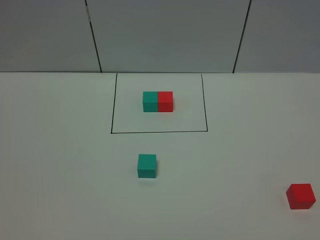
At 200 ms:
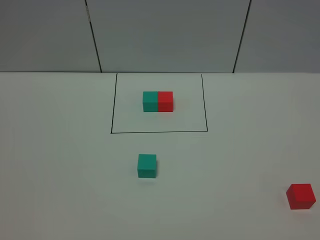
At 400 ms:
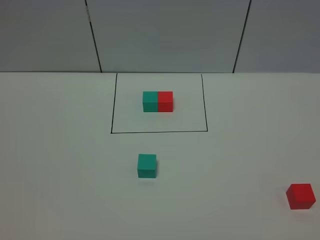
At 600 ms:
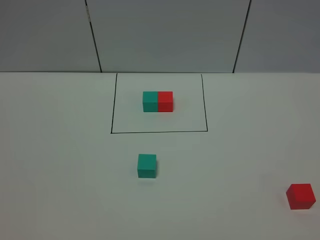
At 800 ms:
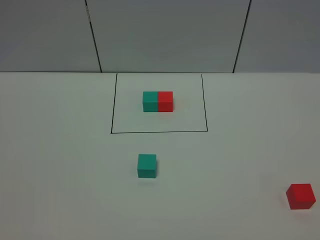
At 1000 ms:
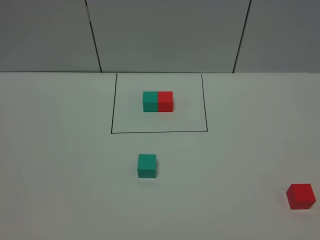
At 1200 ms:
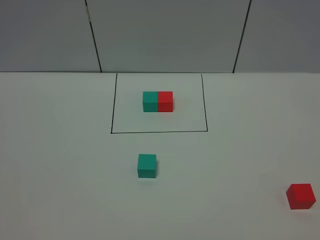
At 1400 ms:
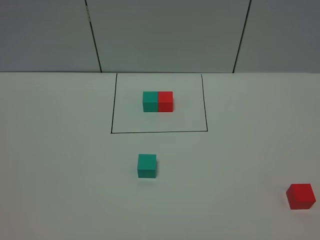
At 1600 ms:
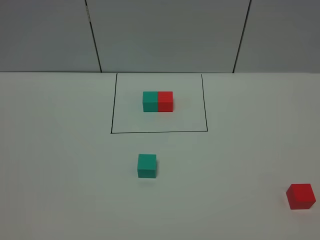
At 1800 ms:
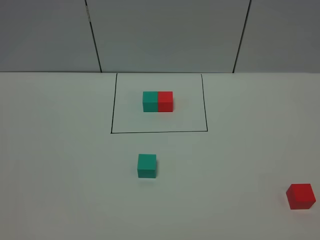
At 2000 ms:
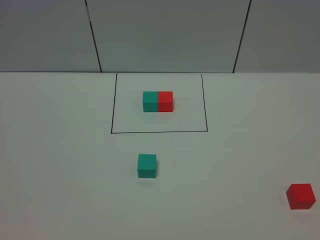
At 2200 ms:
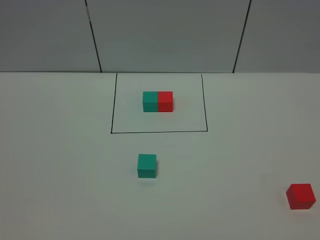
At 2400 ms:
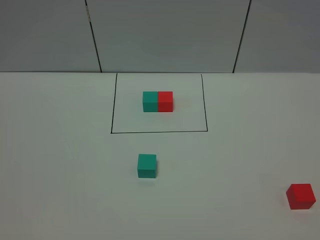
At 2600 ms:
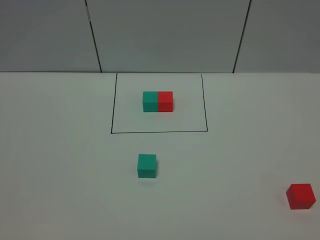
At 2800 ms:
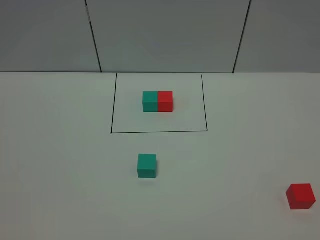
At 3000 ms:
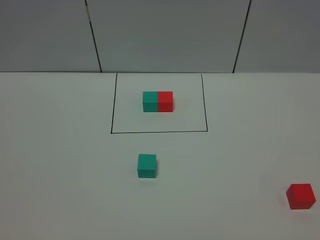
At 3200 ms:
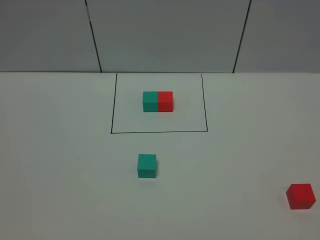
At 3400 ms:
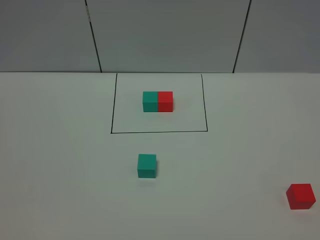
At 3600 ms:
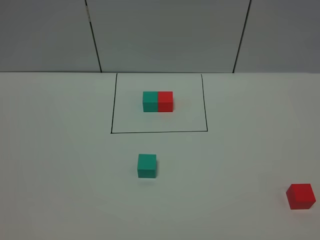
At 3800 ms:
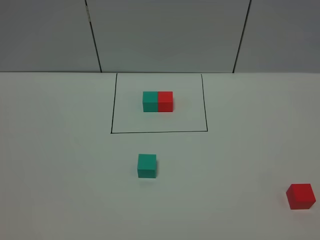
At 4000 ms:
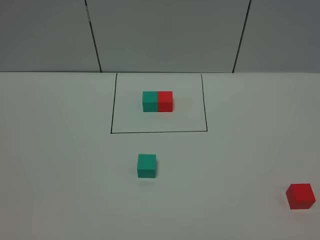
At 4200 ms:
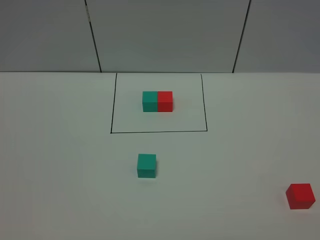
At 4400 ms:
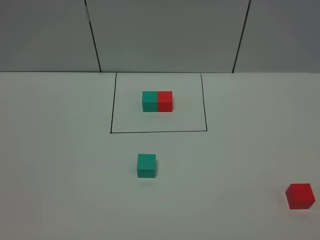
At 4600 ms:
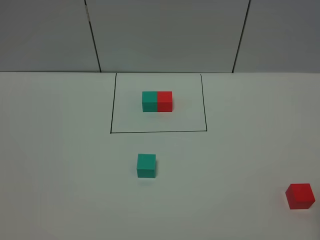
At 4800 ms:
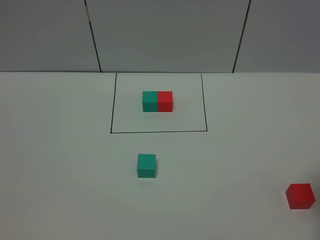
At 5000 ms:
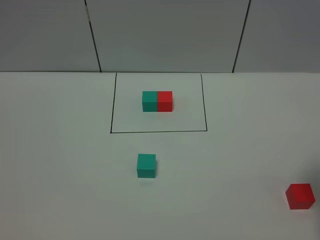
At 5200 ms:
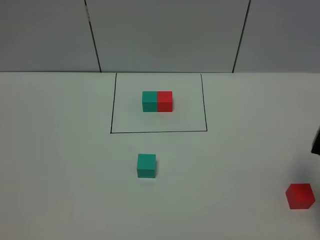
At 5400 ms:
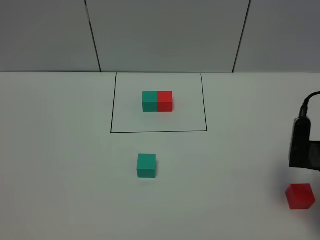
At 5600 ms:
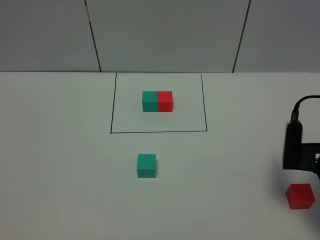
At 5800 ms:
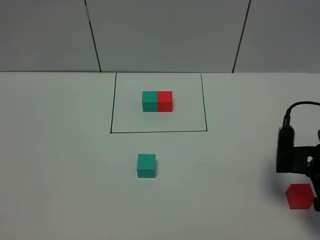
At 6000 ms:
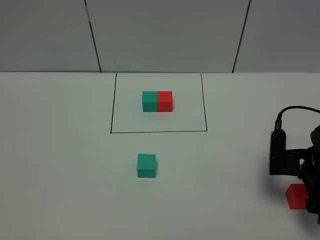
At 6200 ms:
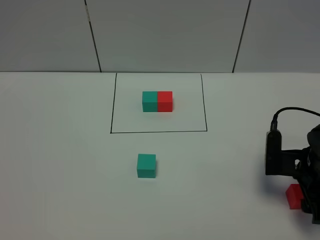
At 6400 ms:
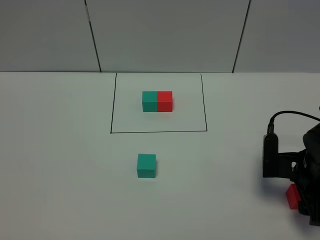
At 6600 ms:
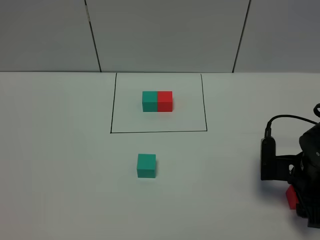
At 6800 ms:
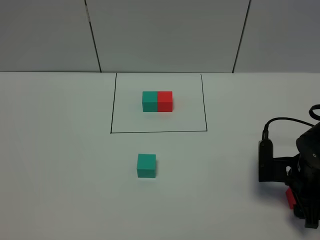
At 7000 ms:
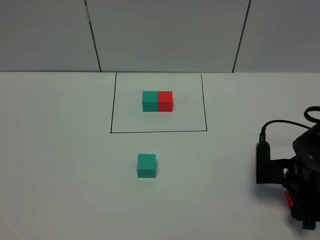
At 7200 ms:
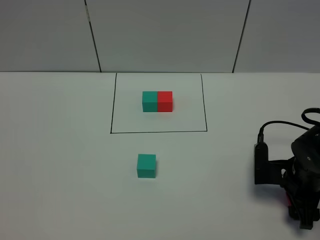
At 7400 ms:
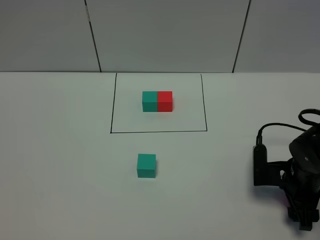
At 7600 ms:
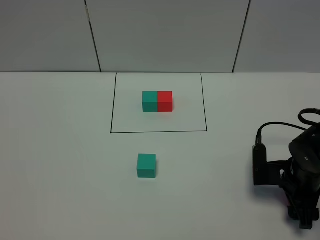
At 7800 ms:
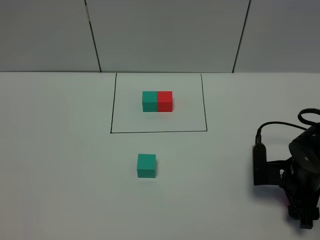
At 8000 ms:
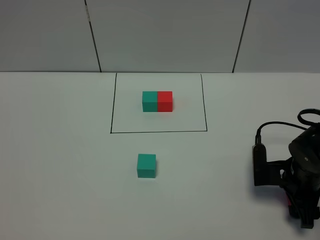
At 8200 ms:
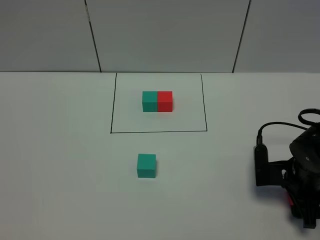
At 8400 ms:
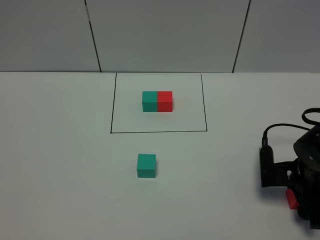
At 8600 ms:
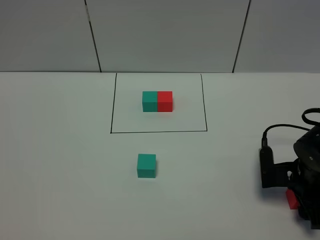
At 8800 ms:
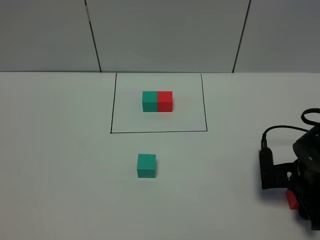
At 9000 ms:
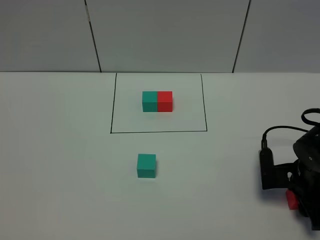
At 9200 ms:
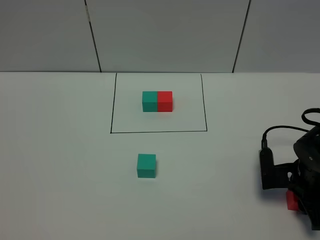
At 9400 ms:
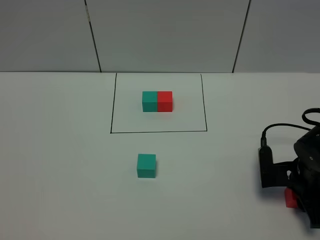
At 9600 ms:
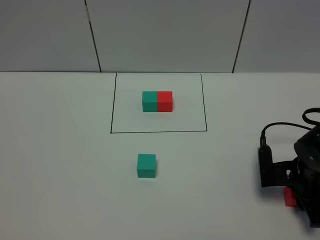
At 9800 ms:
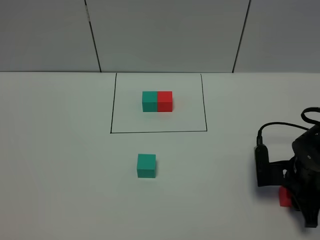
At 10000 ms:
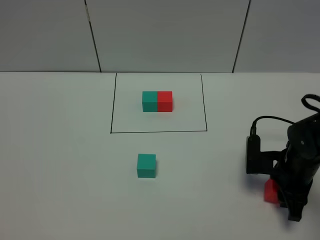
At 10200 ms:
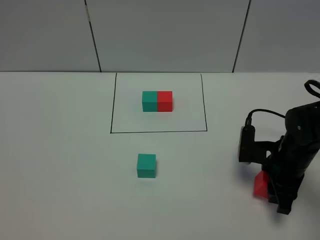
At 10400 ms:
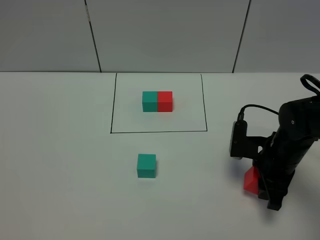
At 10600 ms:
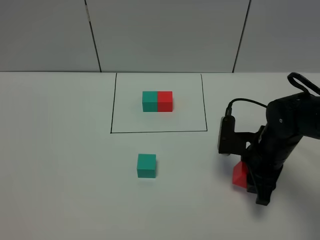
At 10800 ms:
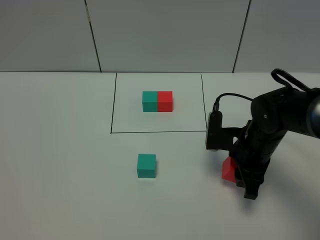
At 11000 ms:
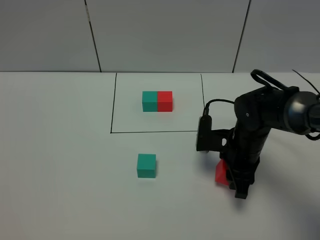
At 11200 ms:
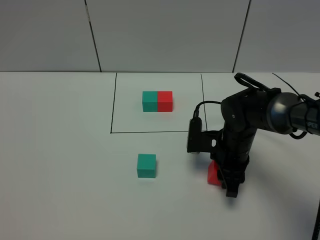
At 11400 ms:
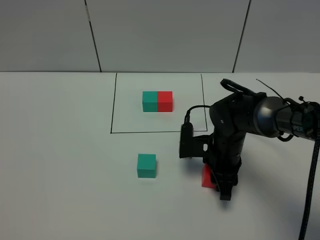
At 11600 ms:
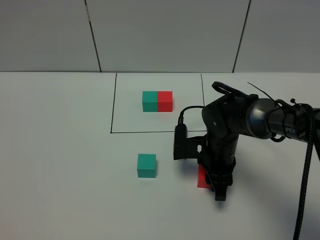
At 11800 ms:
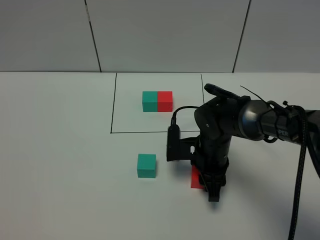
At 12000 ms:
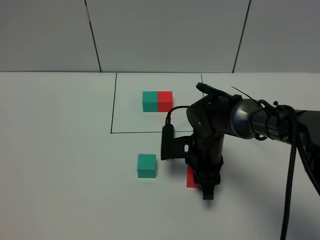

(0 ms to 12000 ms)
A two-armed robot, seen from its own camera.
Task of the whole recording: According to the building block template in front, assemble the scattered blocks together.
0 ms - 3000 ms: Both grippers stay about where they are.
4400 ms - 6000 ms: The right gripper goes some 20 cm forward and downward.
6000 ms - 7600 ms: The right gripper travels downward by about 5 cm.
7600 ms - 9000 ms: The right gripper closes its fingers.
9000 ms - 10400 ms: The right gripper travels to the left by some 5 cm.
10400 ms - 12000 ms: The right gripper shifts about 15 cm to the left.

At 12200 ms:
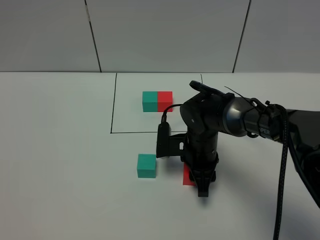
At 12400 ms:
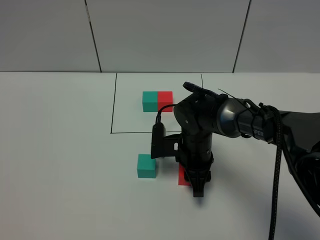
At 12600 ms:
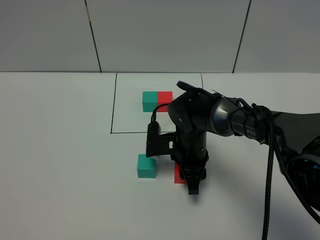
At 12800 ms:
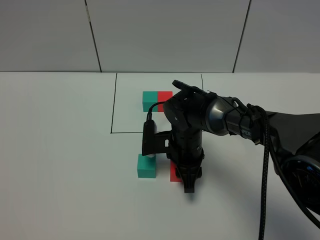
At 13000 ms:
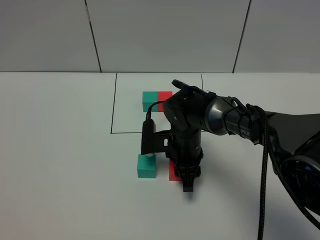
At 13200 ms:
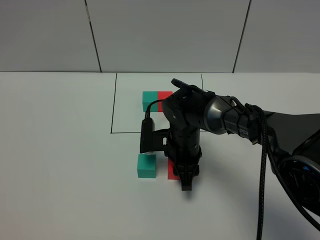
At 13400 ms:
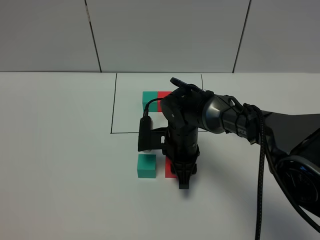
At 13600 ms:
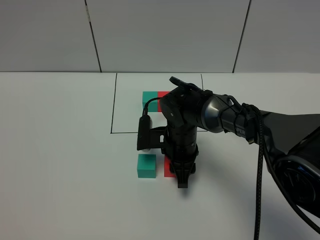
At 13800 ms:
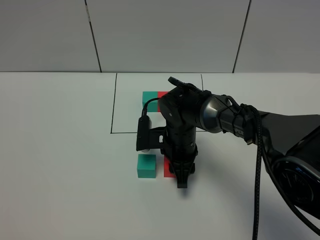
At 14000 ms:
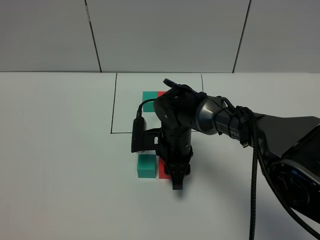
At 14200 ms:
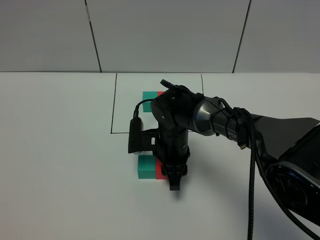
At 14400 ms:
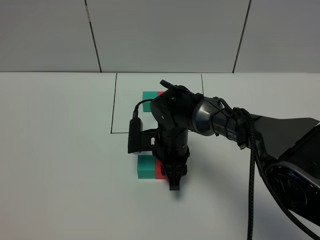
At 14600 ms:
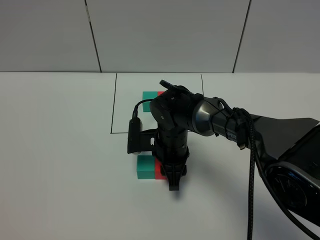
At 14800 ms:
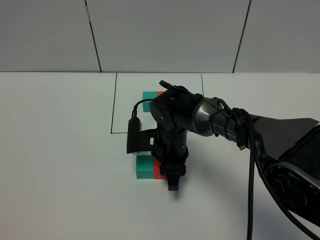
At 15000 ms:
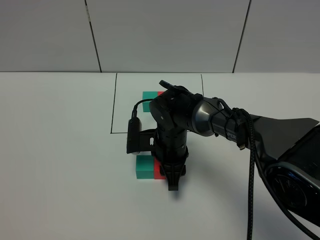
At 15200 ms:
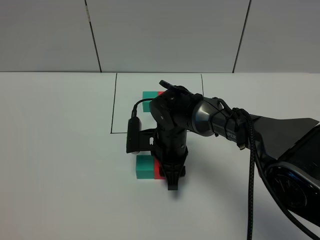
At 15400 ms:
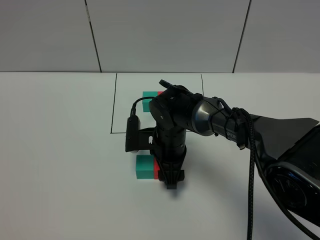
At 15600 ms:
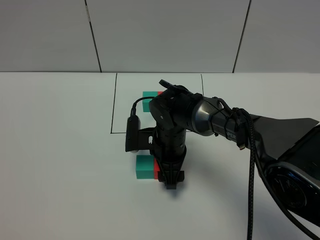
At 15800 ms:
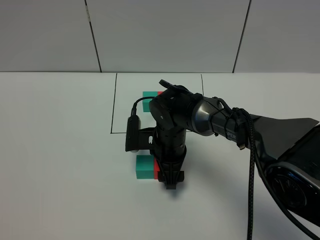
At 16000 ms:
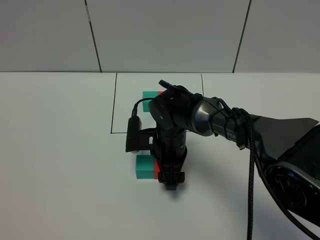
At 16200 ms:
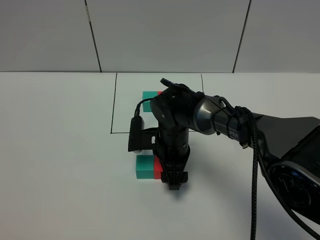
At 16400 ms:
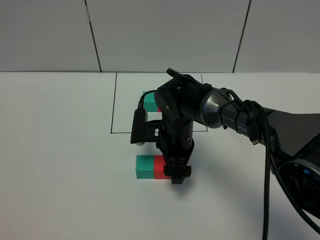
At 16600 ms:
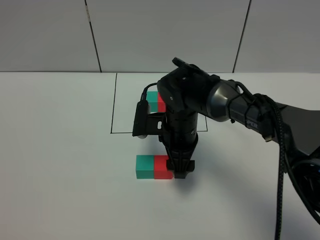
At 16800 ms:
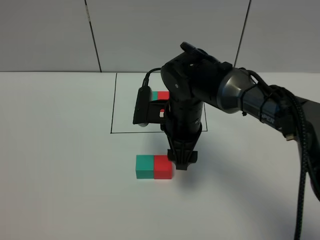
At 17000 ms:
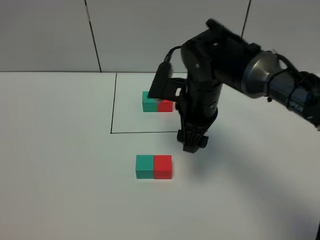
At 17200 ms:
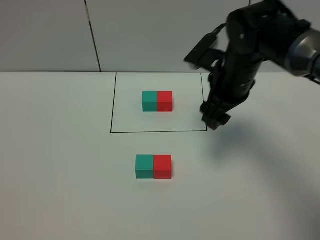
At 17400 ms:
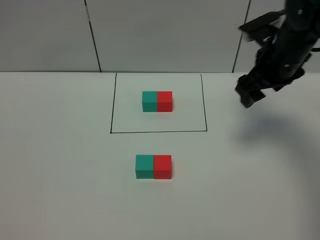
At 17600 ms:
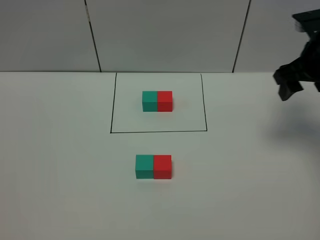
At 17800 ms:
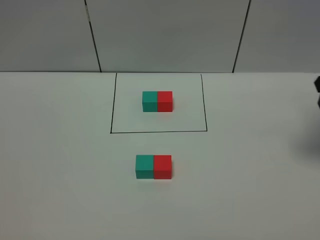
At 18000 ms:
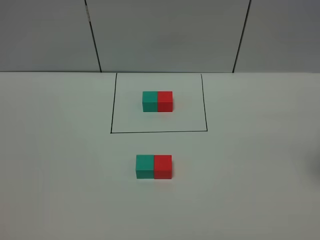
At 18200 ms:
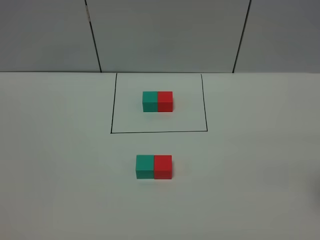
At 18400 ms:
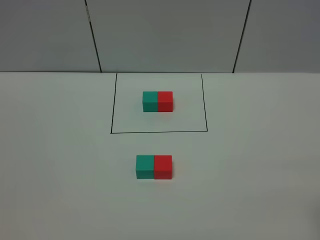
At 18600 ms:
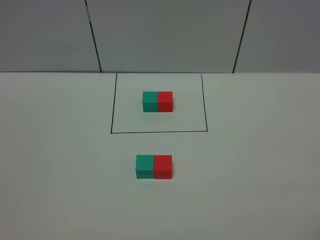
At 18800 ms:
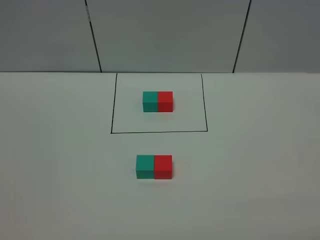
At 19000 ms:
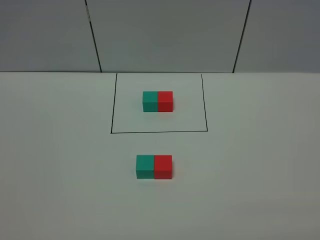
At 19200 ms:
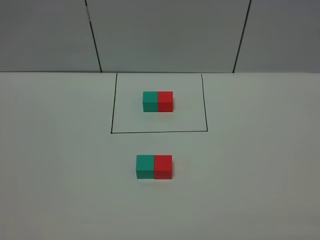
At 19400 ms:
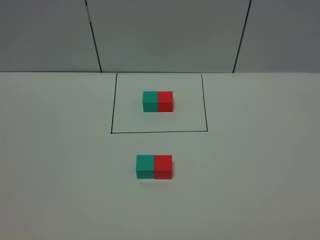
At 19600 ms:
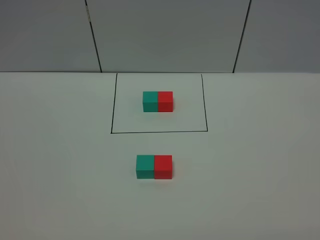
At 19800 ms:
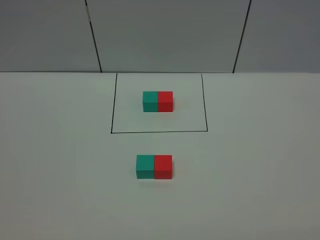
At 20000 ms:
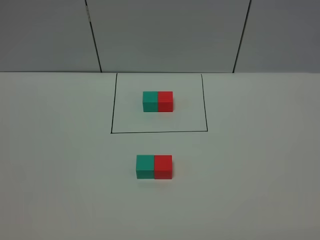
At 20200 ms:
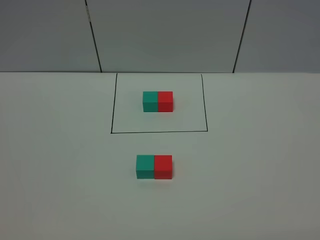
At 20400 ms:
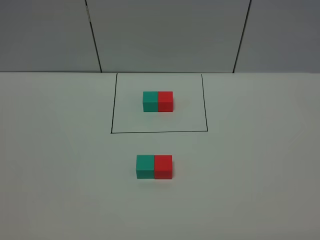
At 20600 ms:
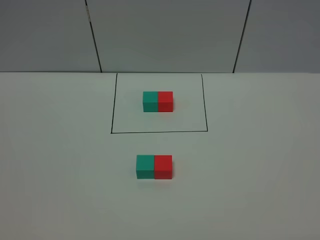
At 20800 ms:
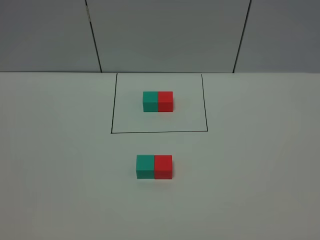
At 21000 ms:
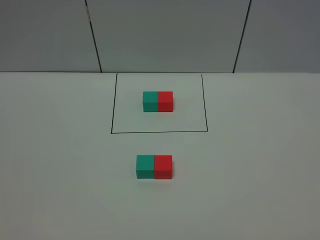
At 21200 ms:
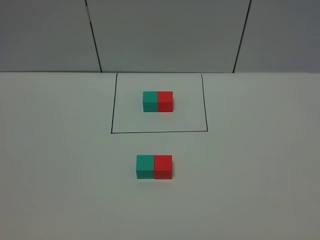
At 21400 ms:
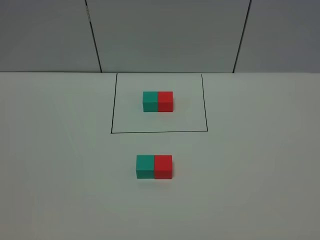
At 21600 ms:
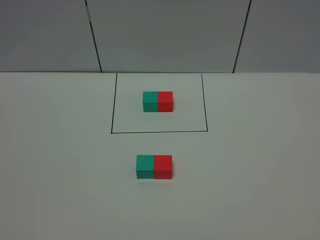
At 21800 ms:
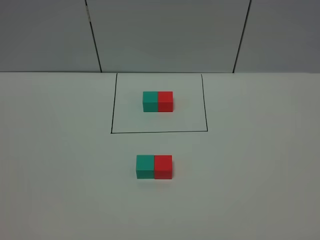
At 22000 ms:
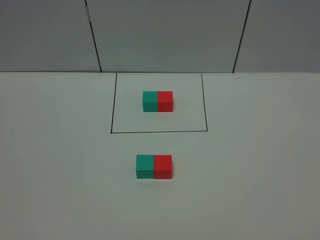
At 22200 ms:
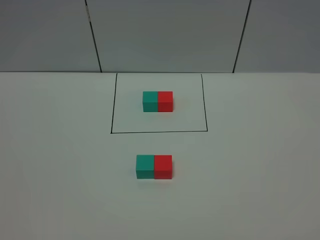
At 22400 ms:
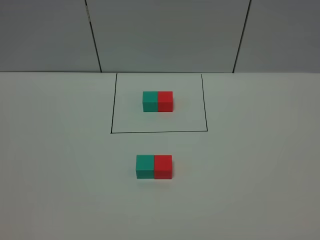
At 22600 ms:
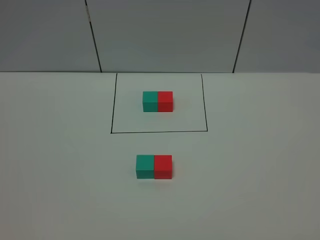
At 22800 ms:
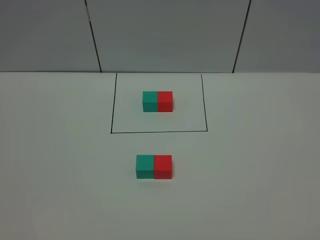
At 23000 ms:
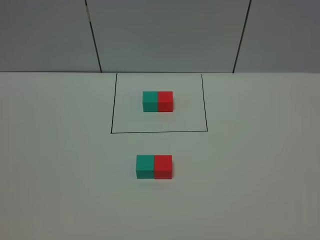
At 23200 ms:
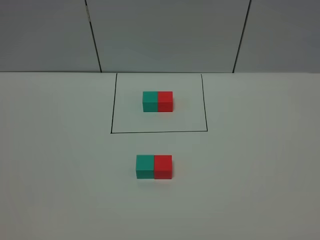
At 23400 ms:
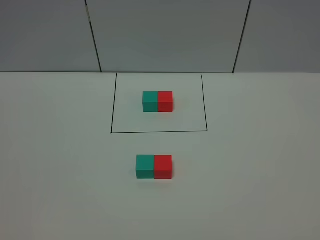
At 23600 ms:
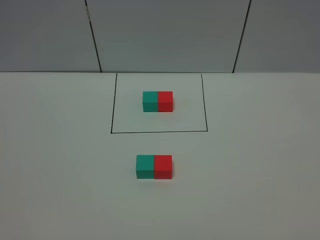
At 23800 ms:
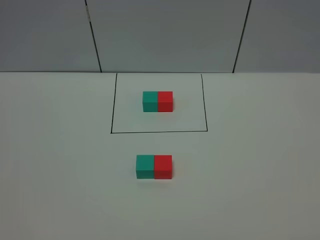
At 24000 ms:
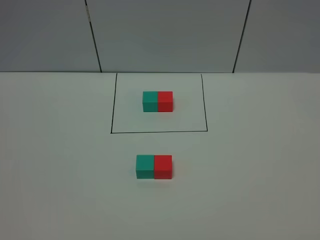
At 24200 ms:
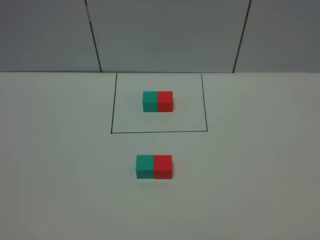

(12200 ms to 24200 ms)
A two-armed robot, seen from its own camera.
Task of the whole recording: According to the building block template in front, assemble the scattered blocks together.
Step, 12200 ms - 16800 ms: Put the red cube on the right of the green cube.
12200 ms - 15200 ms: There are only small adjustments of the grippers.
15200 ms - 16600 ms: The right gripper shifts approximately 5 cm upward, and opens its fingers.
16600 ms - 18200 ms: The right gripper is displaced to the right, upward and backward by roughly 35 cm.
21200 ms - 22600 ms: Neither gripper changes place.
22600 ms - 24200 ms: Neither gripper changes place.
